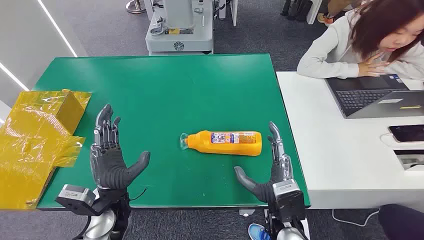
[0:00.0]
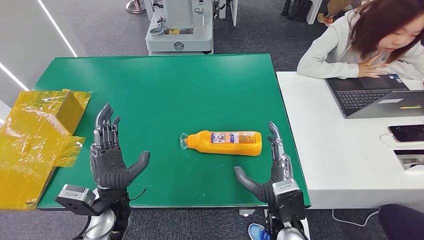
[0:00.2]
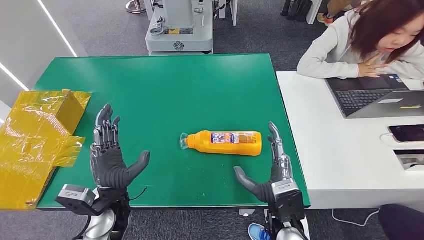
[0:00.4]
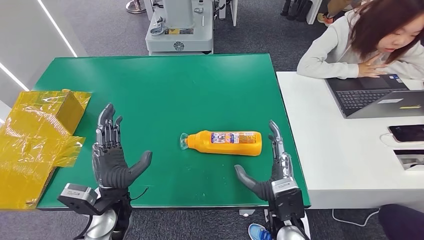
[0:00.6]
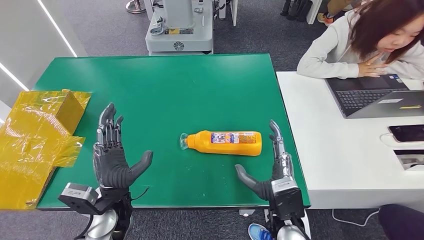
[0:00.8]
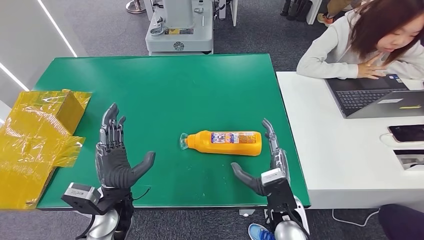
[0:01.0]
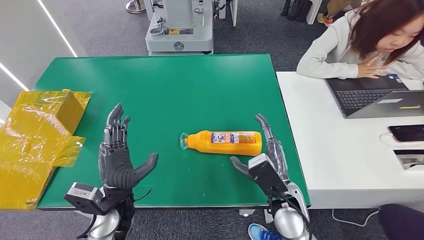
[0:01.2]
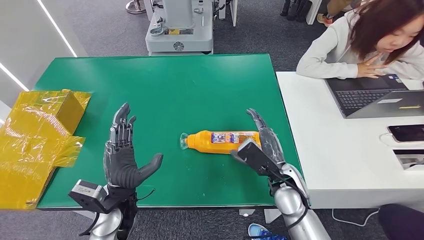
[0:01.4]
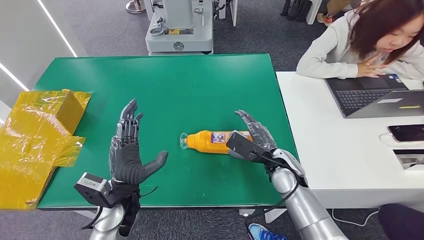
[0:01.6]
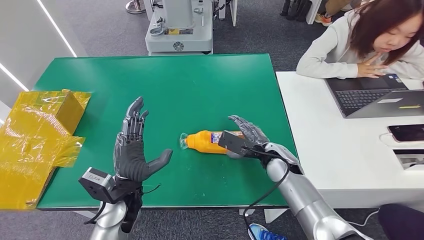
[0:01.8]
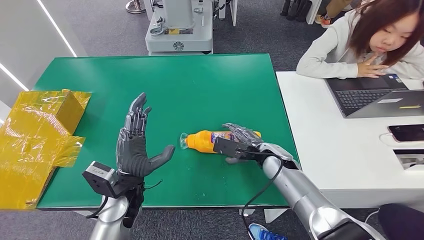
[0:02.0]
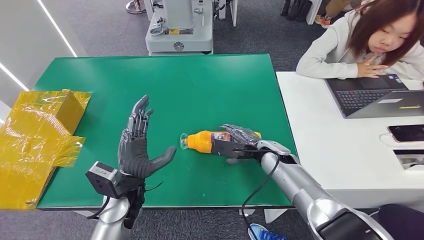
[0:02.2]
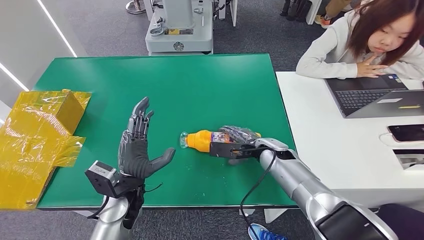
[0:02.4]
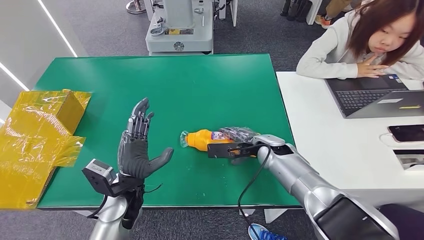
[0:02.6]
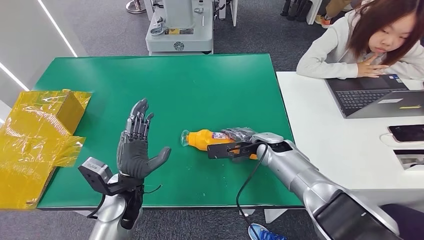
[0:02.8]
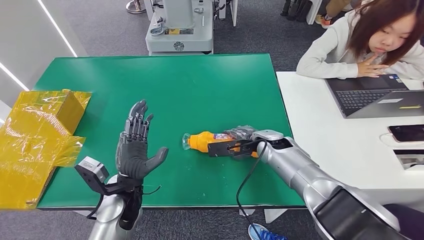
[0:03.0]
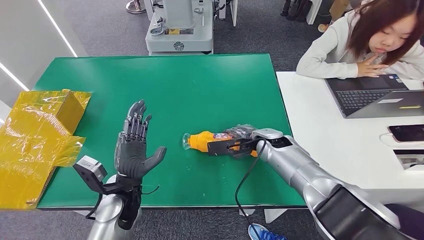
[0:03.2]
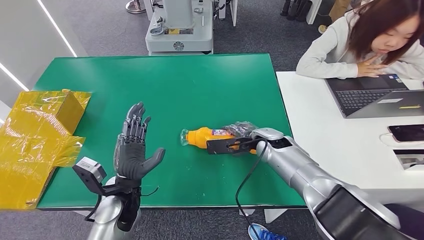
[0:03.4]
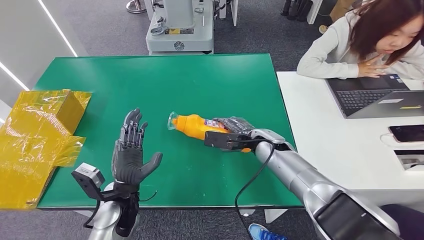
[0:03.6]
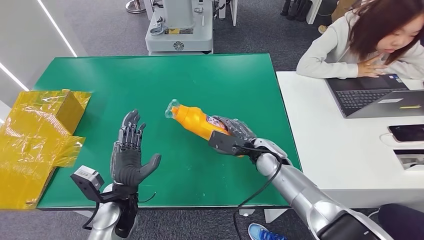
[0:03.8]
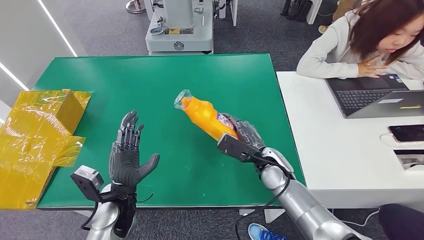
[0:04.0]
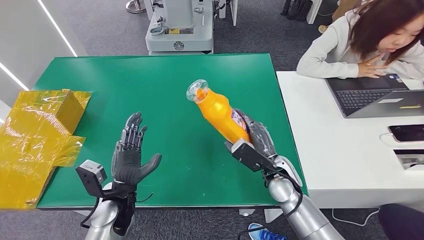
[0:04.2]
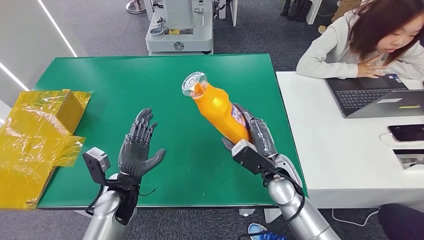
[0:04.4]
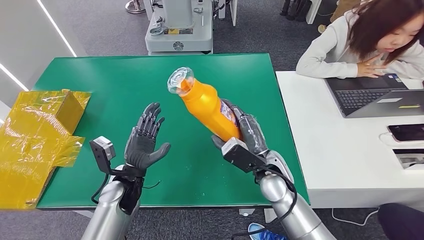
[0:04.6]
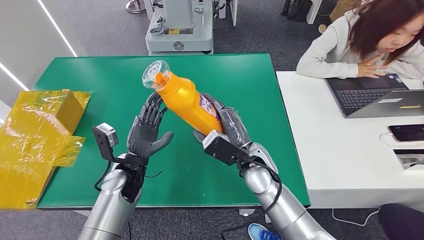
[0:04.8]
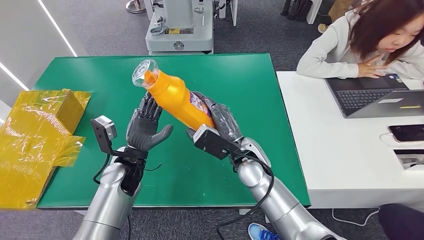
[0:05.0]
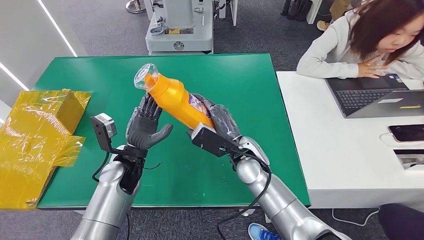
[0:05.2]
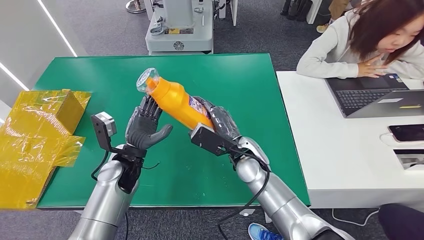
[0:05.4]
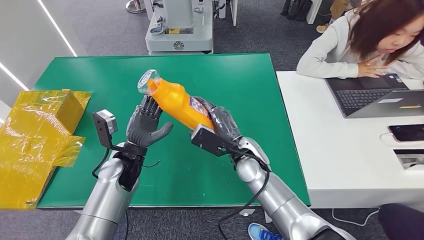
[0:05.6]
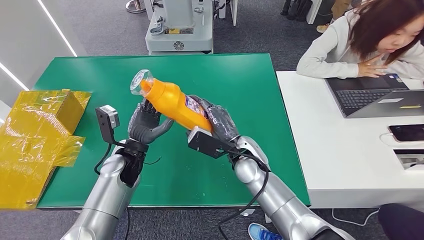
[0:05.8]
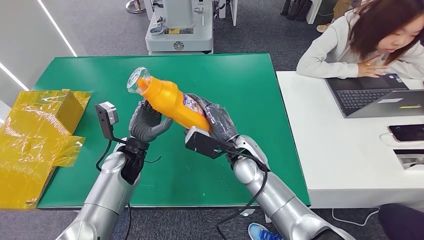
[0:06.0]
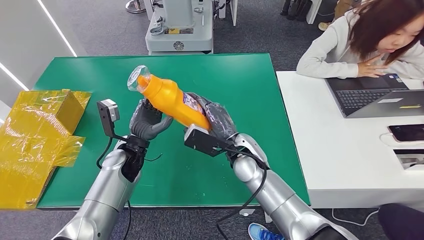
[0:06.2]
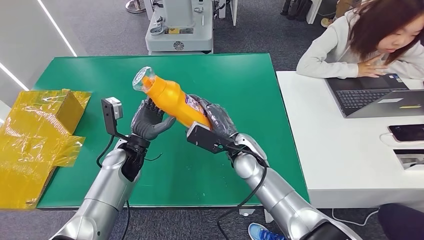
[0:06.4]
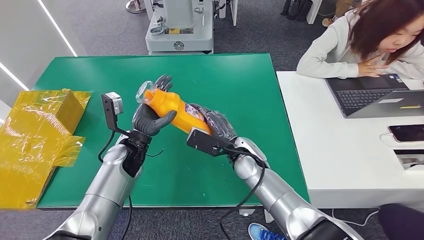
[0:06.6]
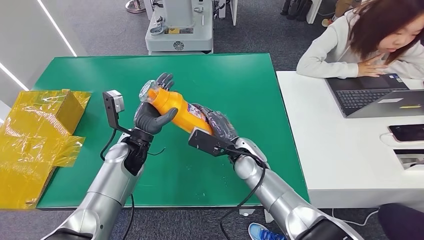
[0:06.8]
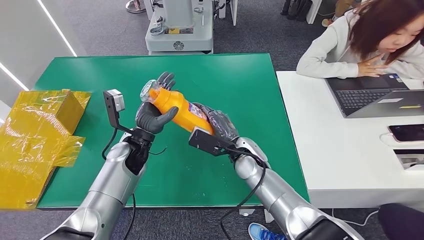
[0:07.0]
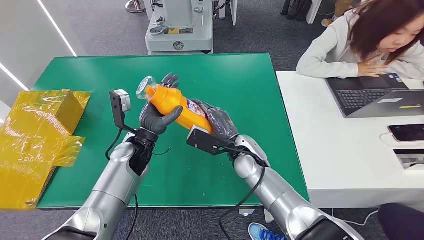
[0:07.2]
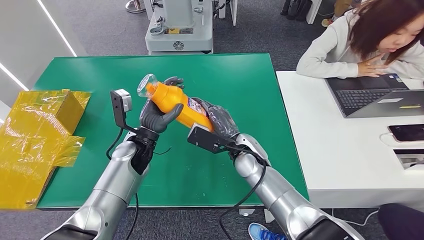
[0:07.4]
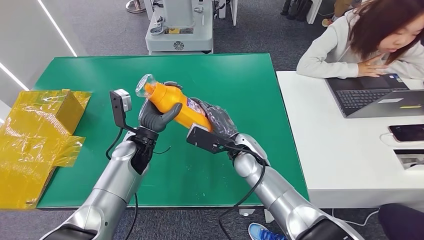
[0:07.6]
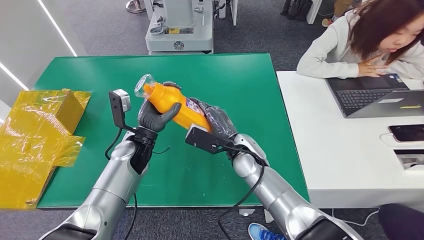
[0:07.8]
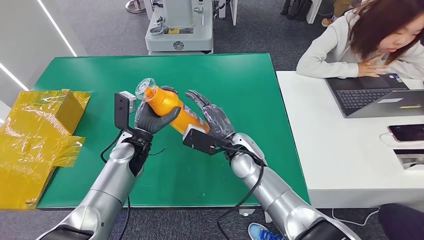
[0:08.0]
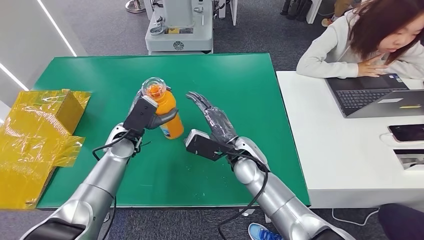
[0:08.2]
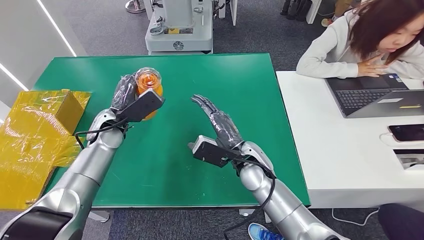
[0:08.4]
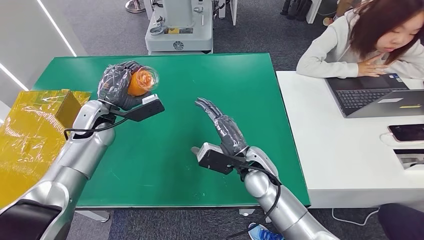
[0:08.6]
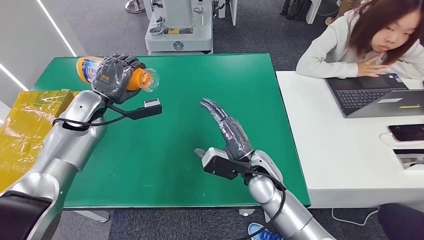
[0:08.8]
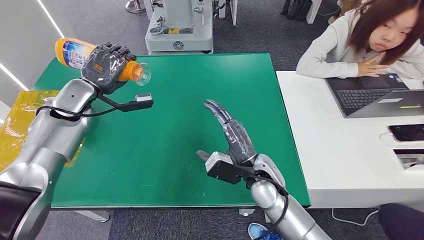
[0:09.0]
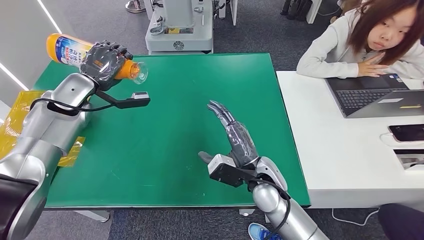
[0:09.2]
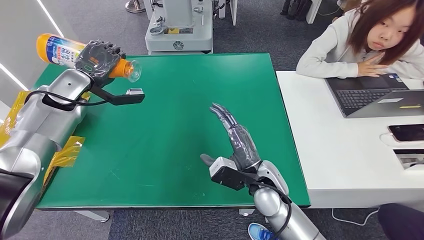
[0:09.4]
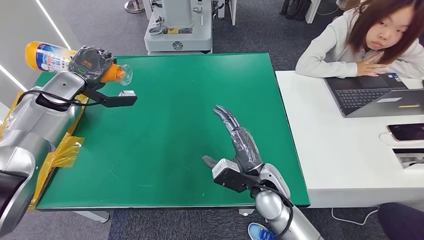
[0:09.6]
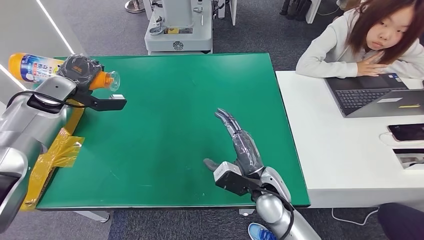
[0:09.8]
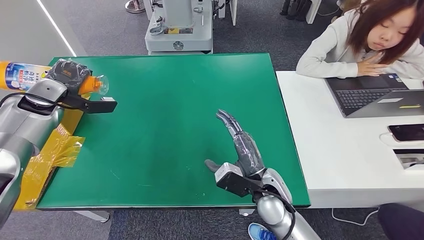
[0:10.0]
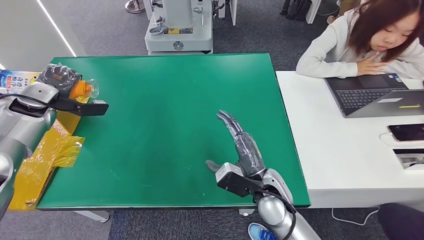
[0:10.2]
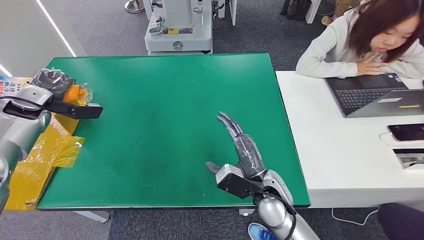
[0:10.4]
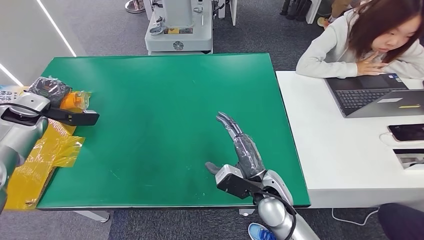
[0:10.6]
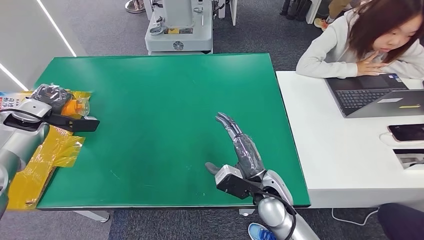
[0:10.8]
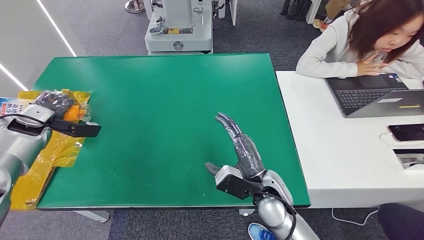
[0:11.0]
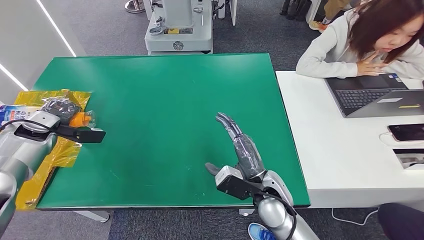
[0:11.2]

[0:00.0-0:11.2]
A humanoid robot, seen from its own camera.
Step, 0:00.0 to 0:06.0: Pick up the bottle from the table.
0:01.6 to 0:03.2: The right hand travels forward by about 10 cm.
0:03.2 to 0:04.8: The left hand travels forward by about 5 cm. The right hand heads backward and to the left, covering approximately 10 cm.
0:04.8 to 0:06.4: The left hand shifts by roughly 5 cm.
0:06.4 to 0:08.0: There are only small adjustments of the hands.
0:09.6 to 0:11.2: The left hand is displaced to the left and downward by approximately 15 cm.

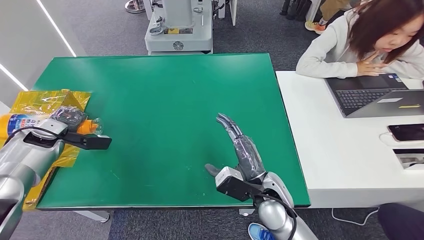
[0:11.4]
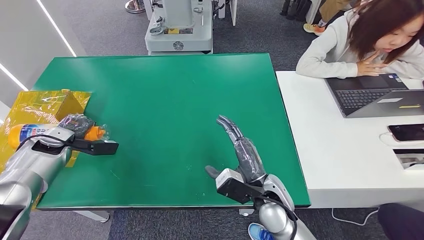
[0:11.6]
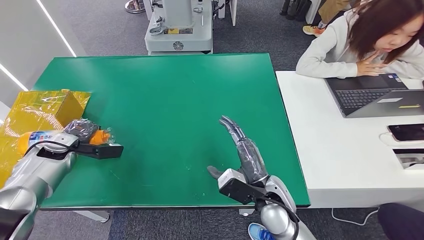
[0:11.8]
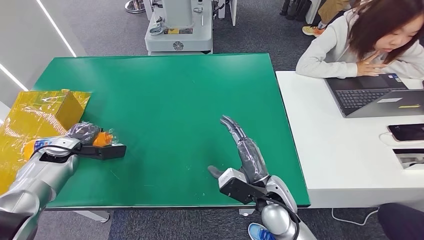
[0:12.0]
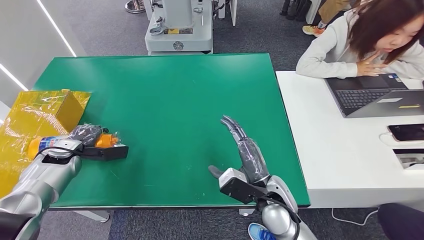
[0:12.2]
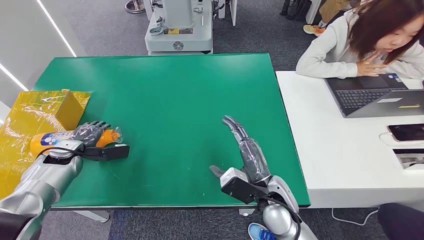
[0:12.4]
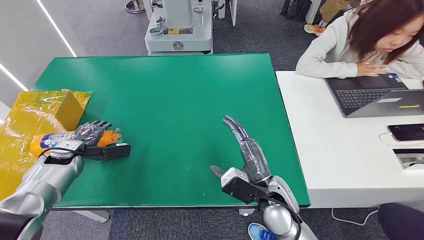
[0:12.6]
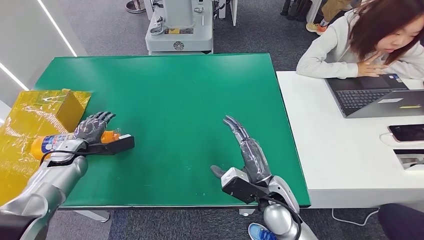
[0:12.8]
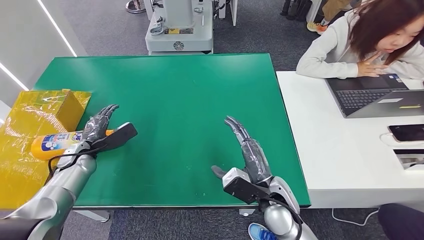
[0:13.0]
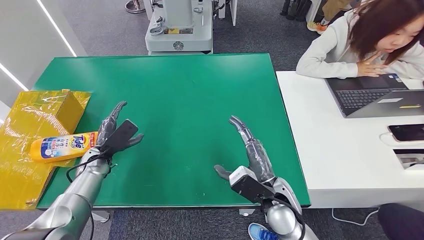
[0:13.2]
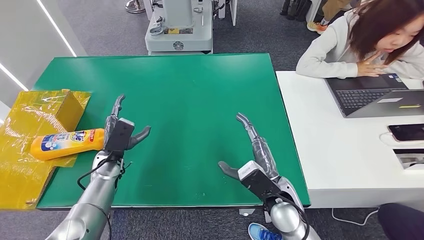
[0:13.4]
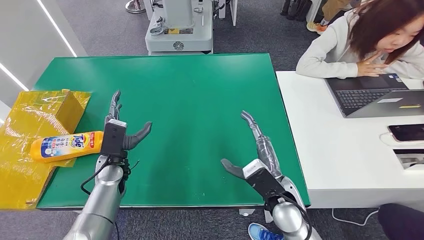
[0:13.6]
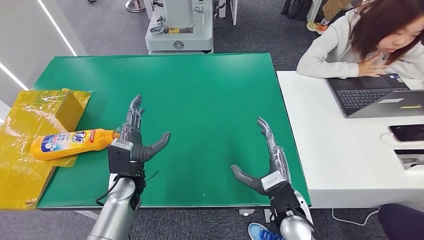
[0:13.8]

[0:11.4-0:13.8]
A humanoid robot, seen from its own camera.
Step, 0:11.4 to 0:13.8: Turn the bottle to the front side.
0:11.4 to 0:12.6: The left hand moves downward, approximately 5 cm.
0:12.6 to 0:13.8: The left hand heads to the right, covering some 25 cm.
